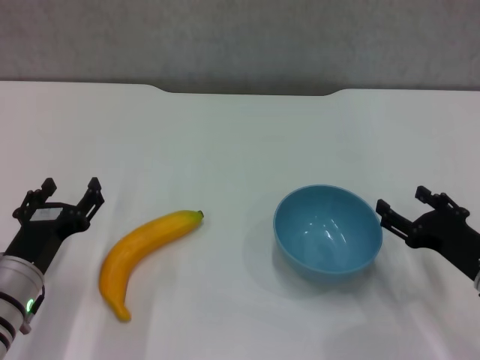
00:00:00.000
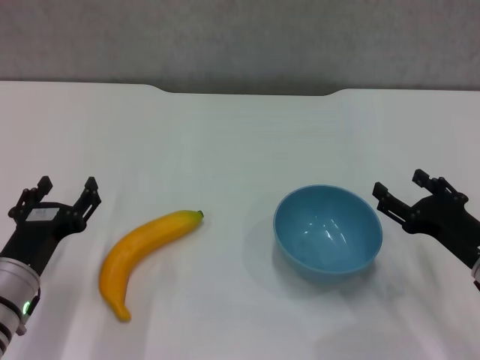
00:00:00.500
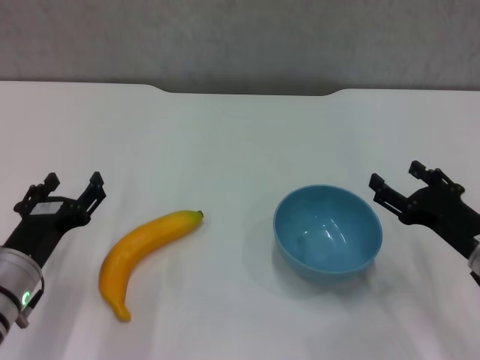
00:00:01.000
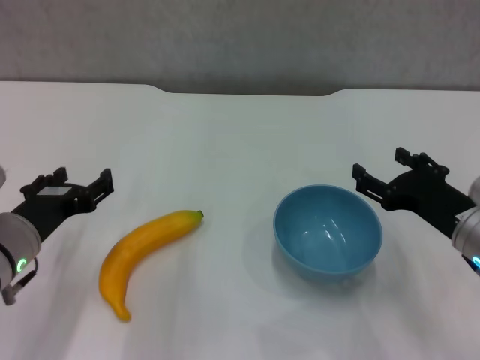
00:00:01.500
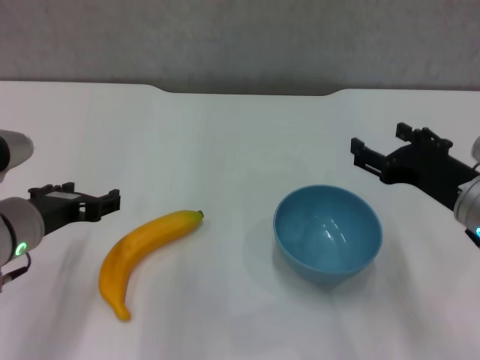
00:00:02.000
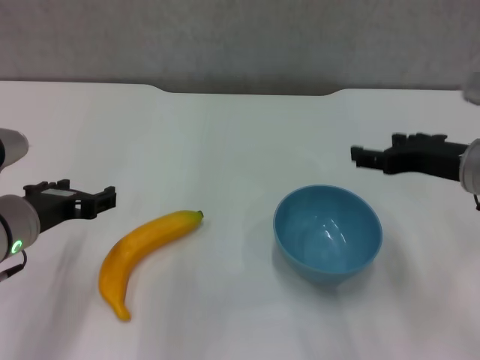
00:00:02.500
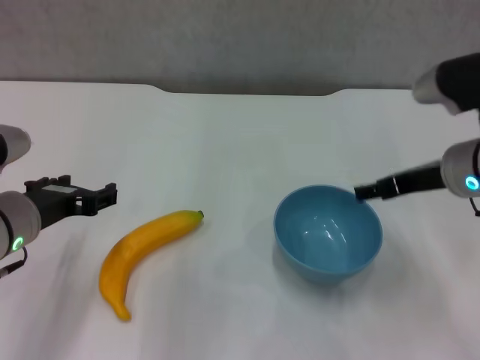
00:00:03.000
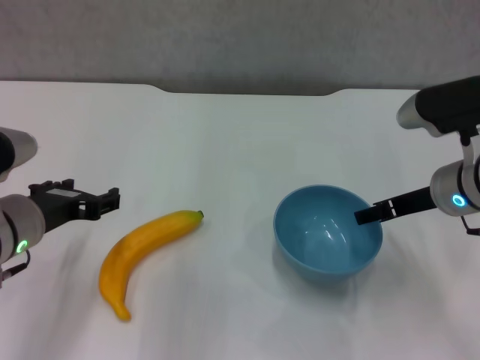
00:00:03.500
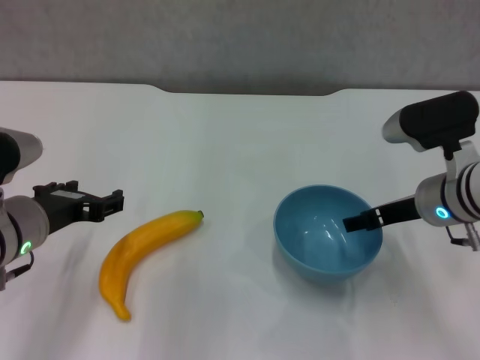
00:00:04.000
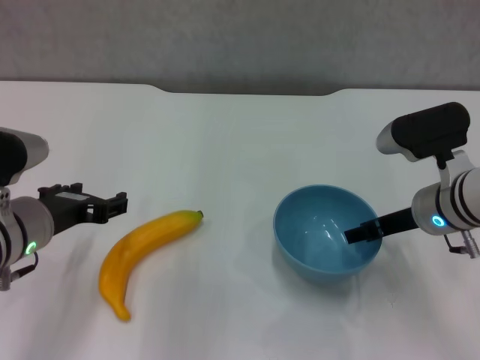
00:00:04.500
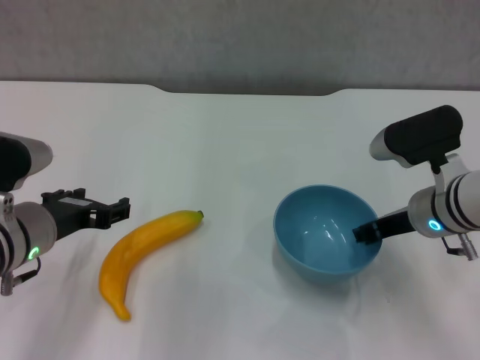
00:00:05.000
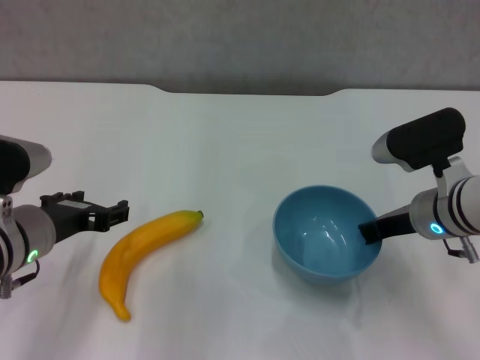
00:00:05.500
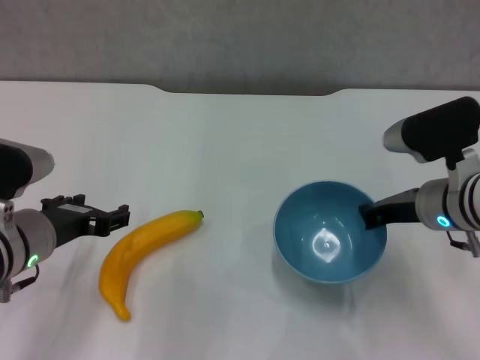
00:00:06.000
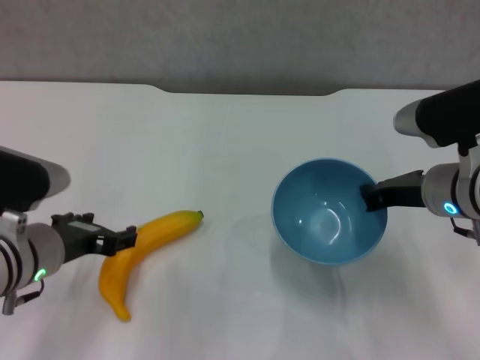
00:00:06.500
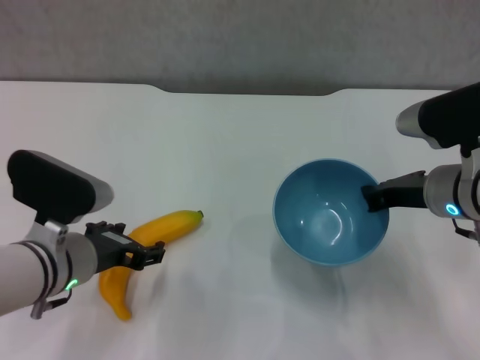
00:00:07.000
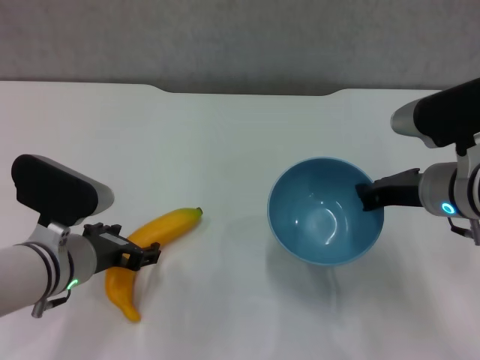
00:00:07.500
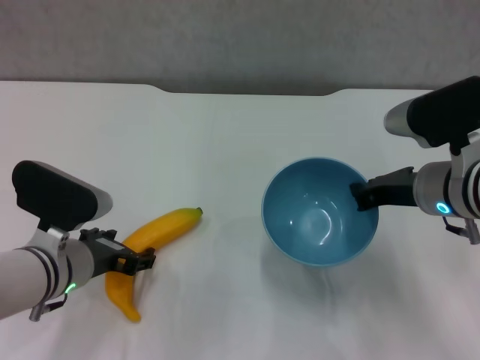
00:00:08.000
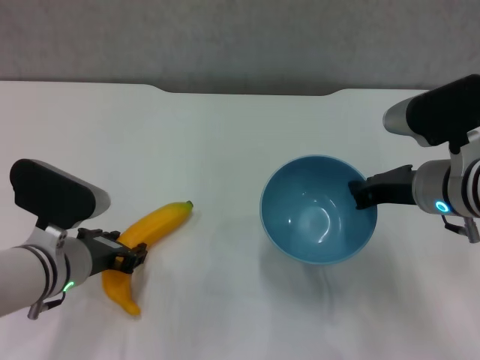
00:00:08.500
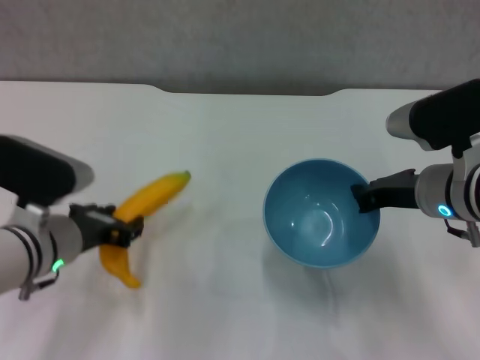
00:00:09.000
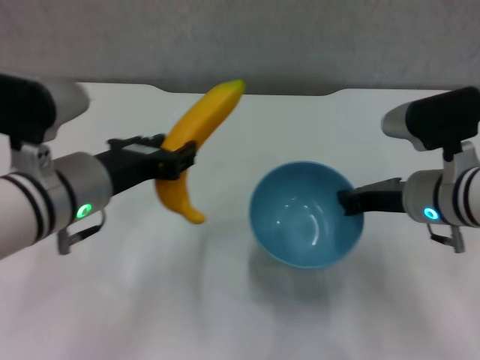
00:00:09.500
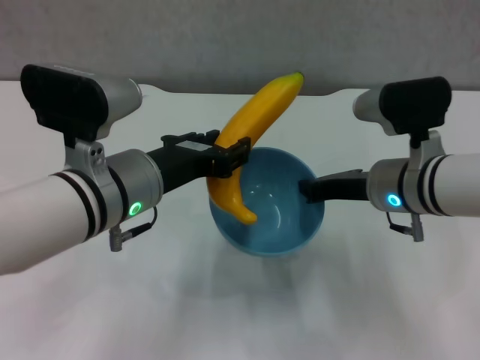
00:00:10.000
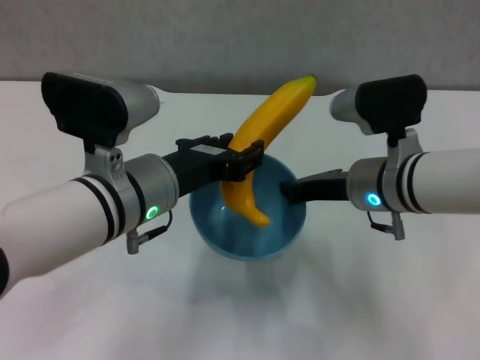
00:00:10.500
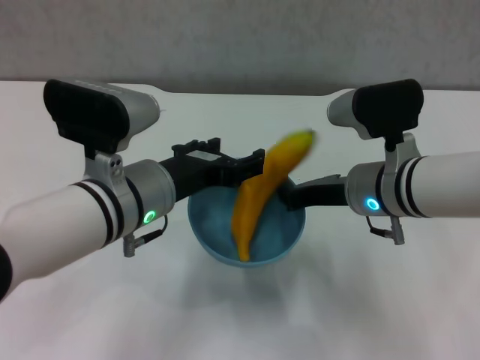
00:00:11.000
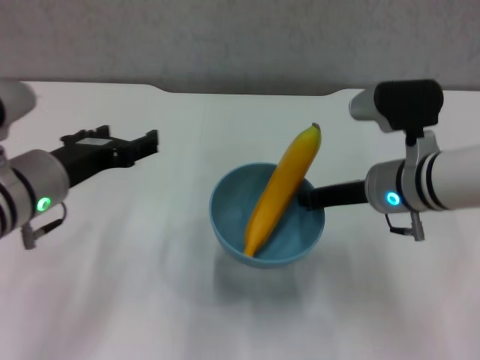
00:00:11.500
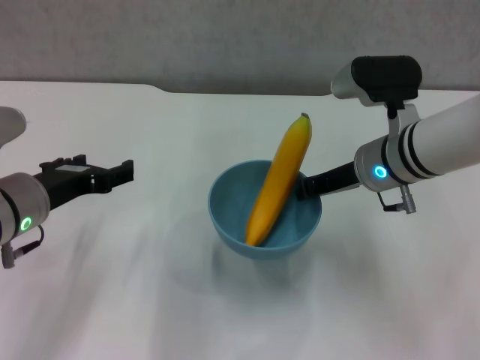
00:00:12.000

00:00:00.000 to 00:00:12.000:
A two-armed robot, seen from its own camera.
Step, 00:00:00.000 to 00:00:05.000: Grasp the blue bowl with right gripper.
Step, 00:00:05.500 to 00:00:06.000: Lift the blue bowl with right gripper.
Step, 00:00:07.000 to 00:00:08.500: Grasp the banana with left gripper.
Step, 00:00:09.000 to 00:00:10.500: Place the banana in the blue bowl with left gripper.
00:00:00.000 to 00:00:02.000: The left gripper is displaced upward by approximately 10 cm. Meanwhile the right gripper is displaced upward and to the left by some 10 cm.
00:00:02.000 to 00:00:04.000: The right gripper is displaced forward by some 5 cm.
00:00:04.000 to 00:00:06.000: The right gripper closes.
00:00:06.000 to 00:00:08.000: The left gripper changes place by some 5 cm.
00:00:08.000 to 00:00:10.000: The left gripper is displaced upward and to the right by roughly 15 cm, and closes its fingers.
00:00:10.000 to 00:00:12.000: The left gripper heads to the left, covering roughly 10 cm, and opens up.

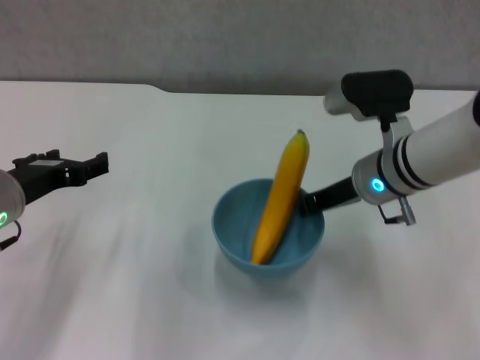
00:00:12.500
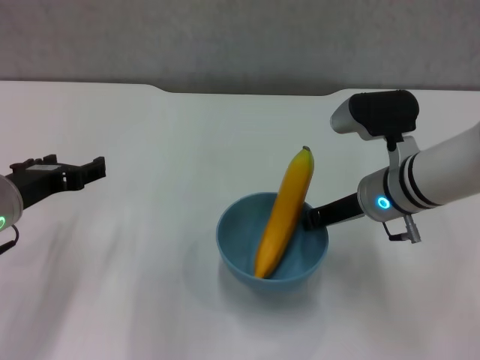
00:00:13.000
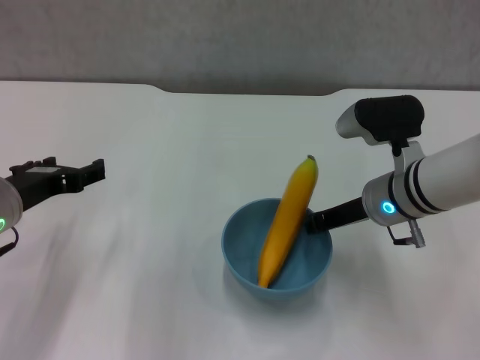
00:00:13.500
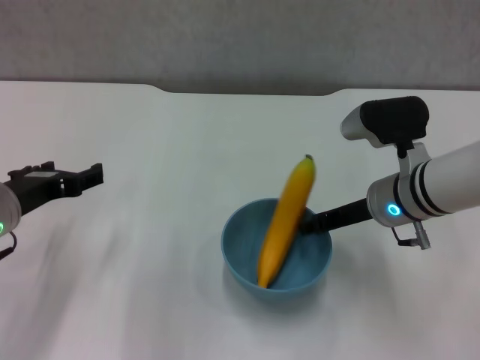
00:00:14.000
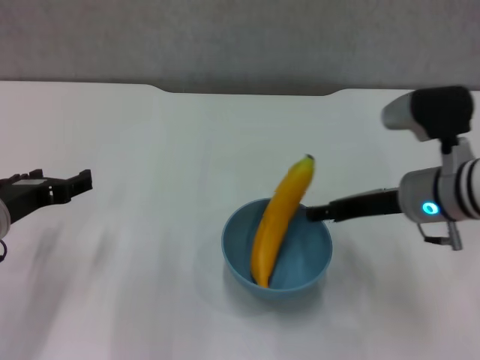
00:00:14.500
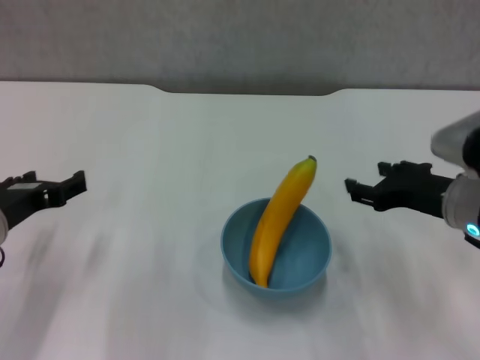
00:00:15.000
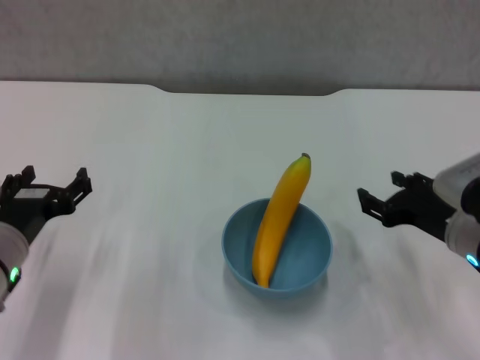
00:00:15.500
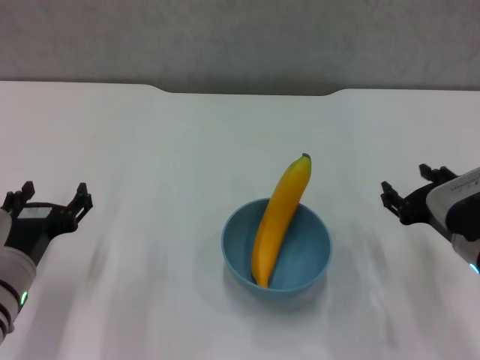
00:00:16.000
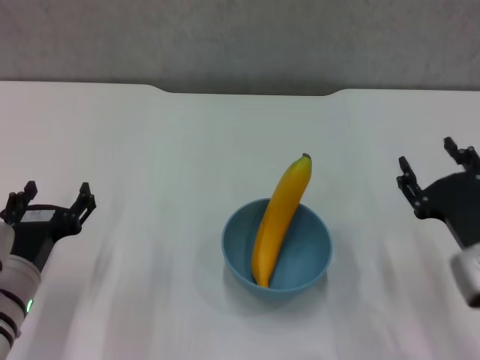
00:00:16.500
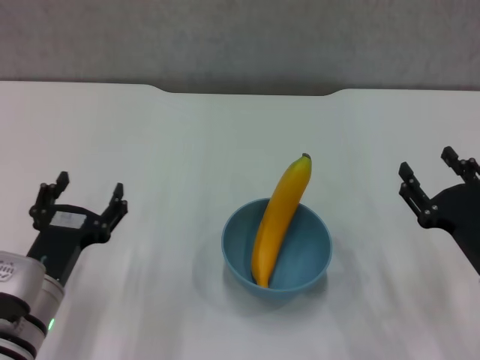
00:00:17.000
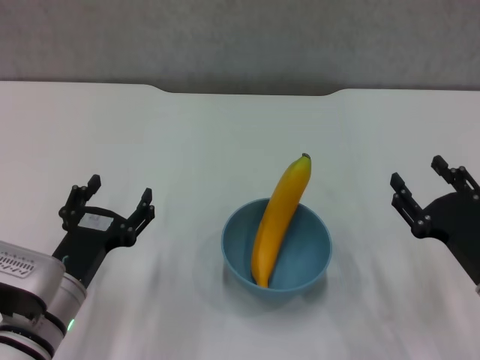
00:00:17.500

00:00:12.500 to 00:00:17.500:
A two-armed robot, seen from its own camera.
Step, 00:00:12.500 to 00:00:14.500: Place the bowl on the table with right gripper.
00:00:12.500 to 00:00:15.000: The right gripper shifts some 10 cm to the right and backward, and opens.
00:00:15.000 to 00:00:17.500: The left gripper moves downward and to the right, about 10 cm; the right gripper heads downward and backward, covering about 10 cm.

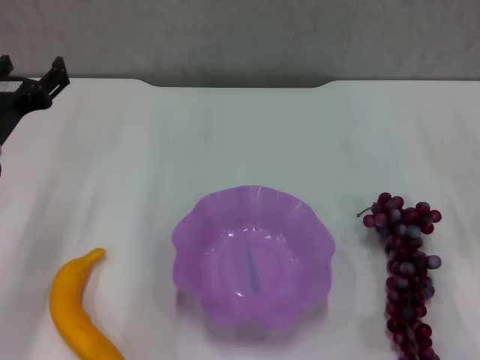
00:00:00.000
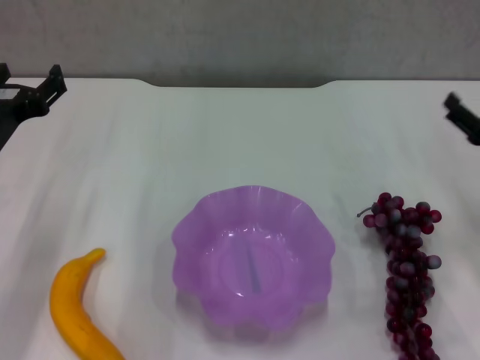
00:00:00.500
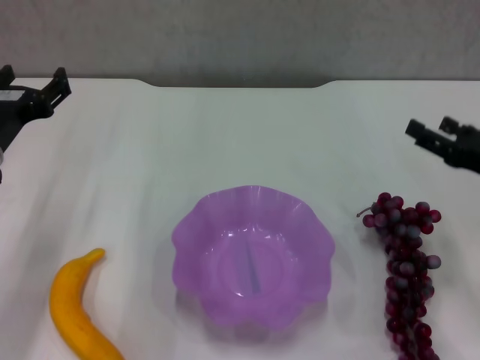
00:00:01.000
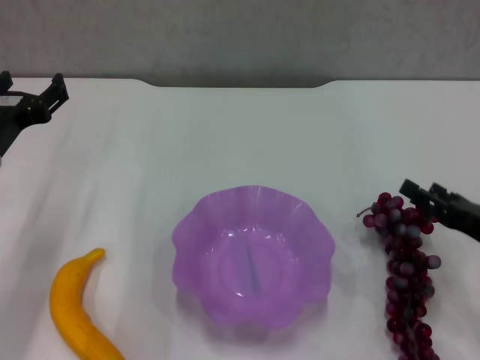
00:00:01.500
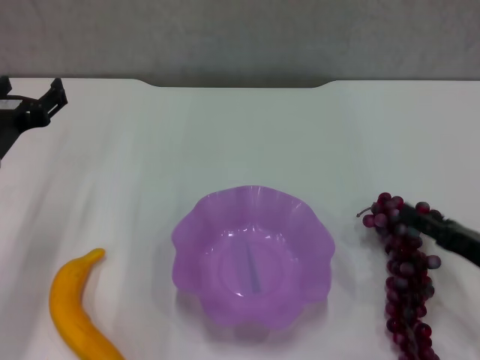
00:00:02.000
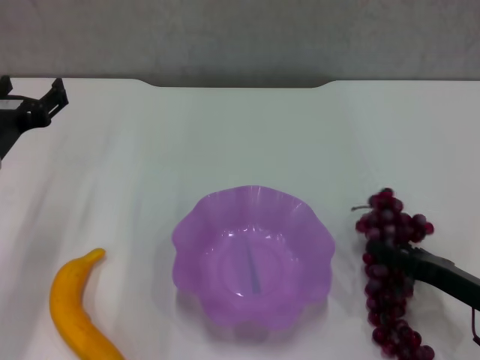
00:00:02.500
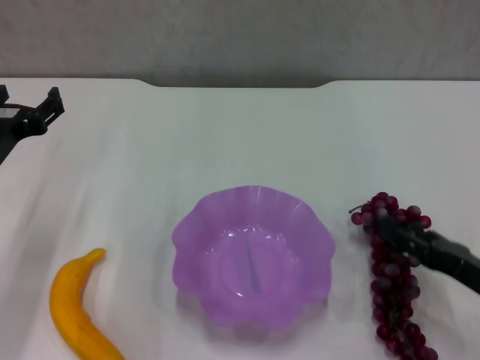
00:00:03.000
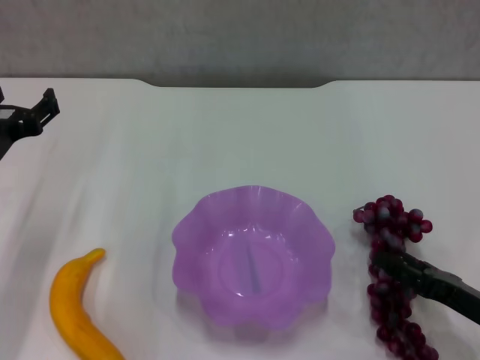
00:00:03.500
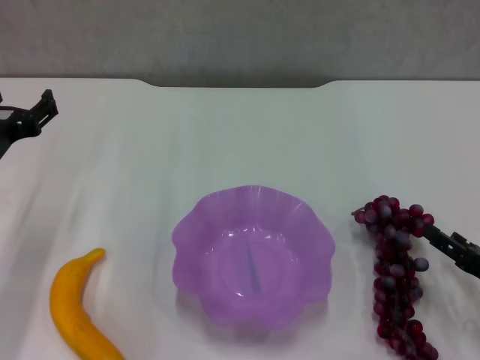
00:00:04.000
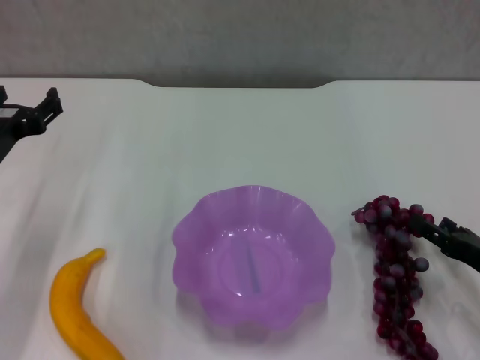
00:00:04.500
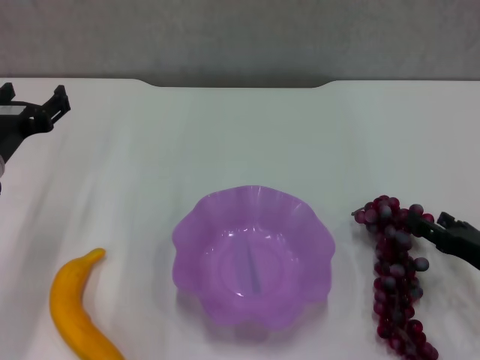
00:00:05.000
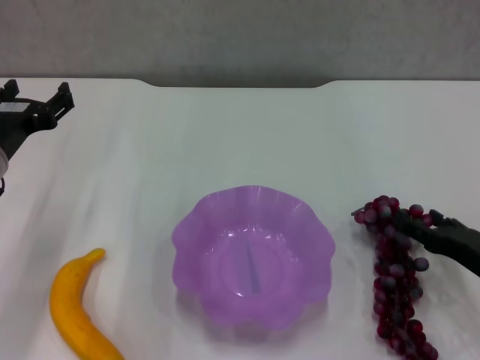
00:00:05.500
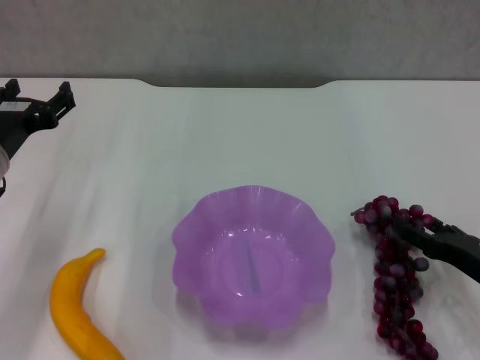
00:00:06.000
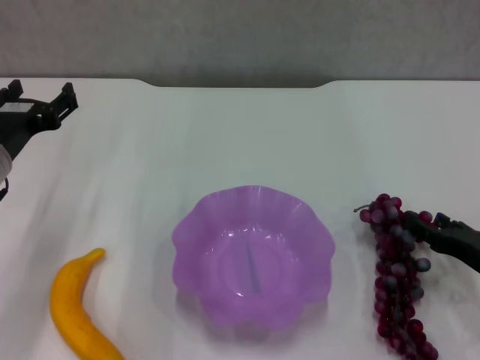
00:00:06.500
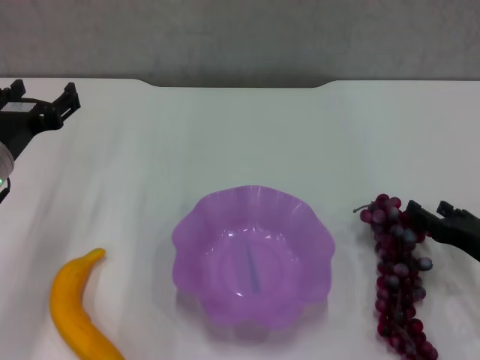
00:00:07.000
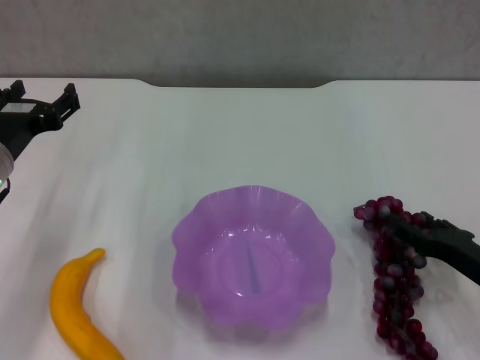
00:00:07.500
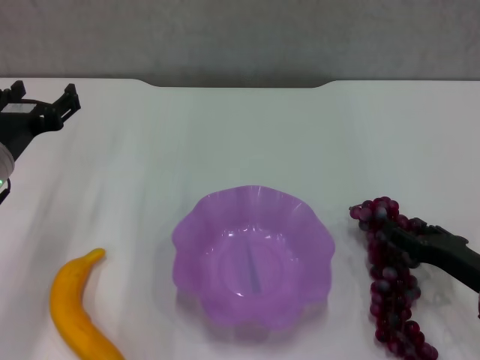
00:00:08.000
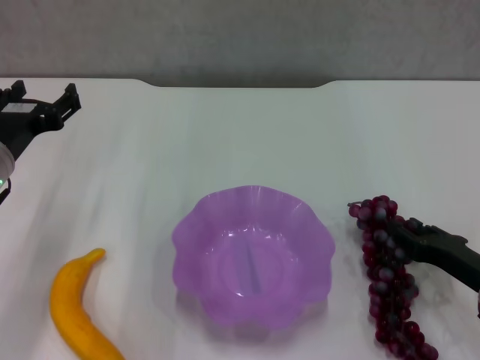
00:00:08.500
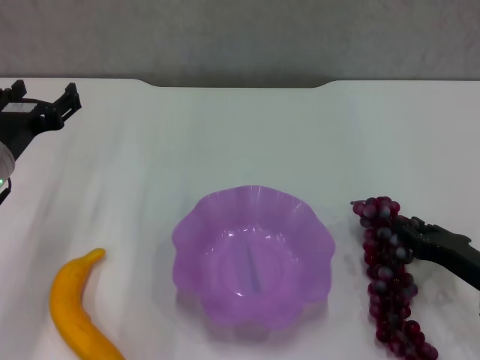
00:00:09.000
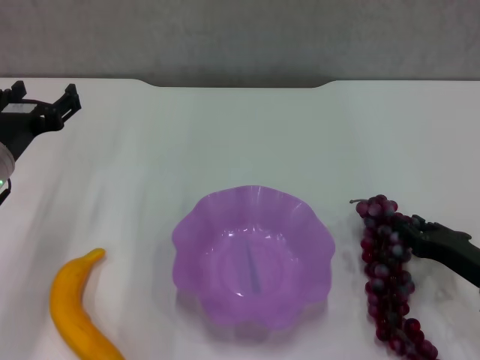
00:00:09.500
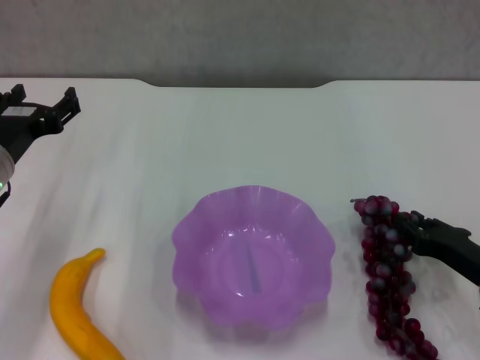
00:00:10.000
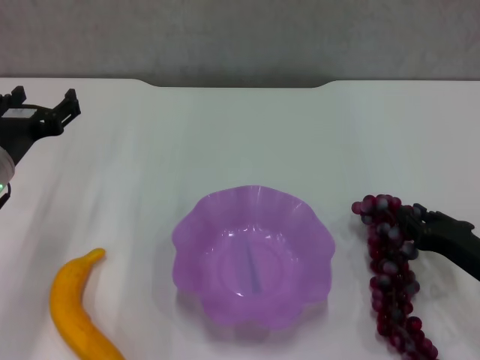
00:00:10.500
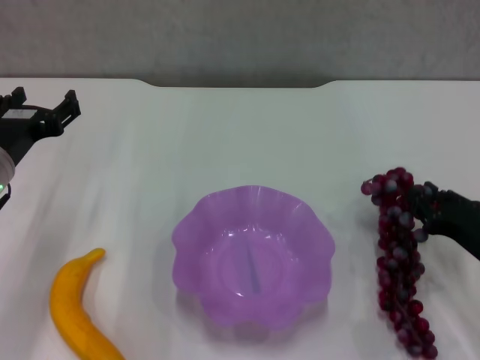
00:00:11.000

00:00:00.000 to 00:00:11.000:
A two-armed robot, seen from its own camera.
Step, 00:00:00.000 to 00:00:09.500: Grasp the grape with right gripper.
00:00:00.000 to 00:00:02.000: The right gripper heads backward, covering approximately 5 cm.
00:00:02.000 to 00:00:07.500: There are only small adjustments of the grippers.
00:00:07.500 to 00:00:09.000: The right gripper closes its fingers.
00:00:09.000 to 00:00:11.000: The grippers make only small movements.
